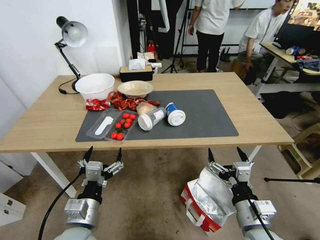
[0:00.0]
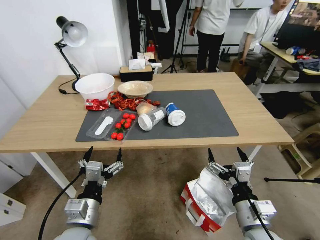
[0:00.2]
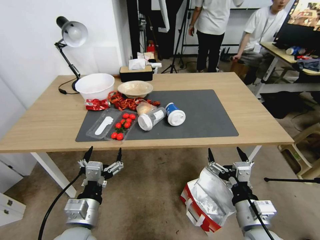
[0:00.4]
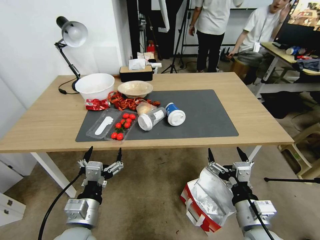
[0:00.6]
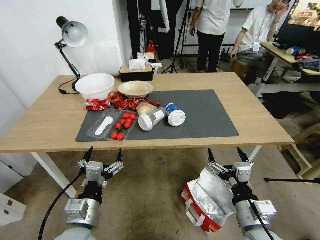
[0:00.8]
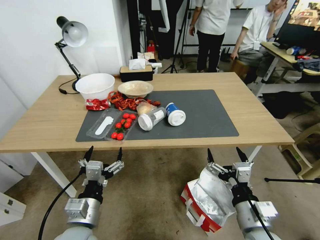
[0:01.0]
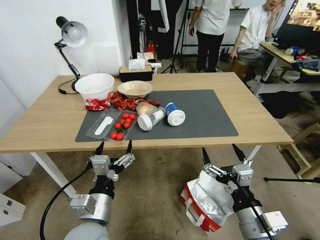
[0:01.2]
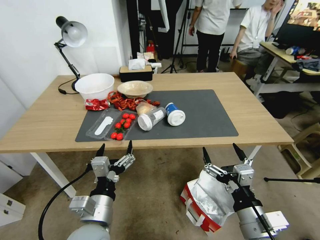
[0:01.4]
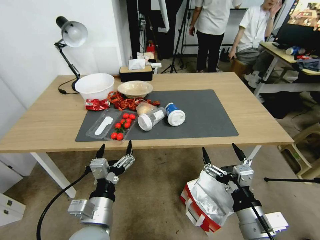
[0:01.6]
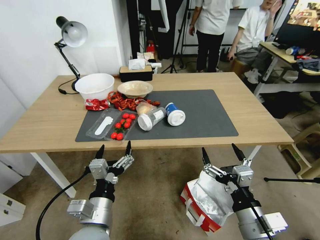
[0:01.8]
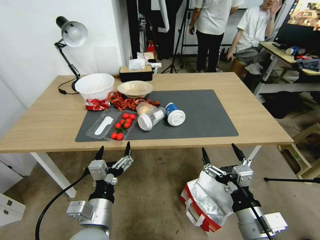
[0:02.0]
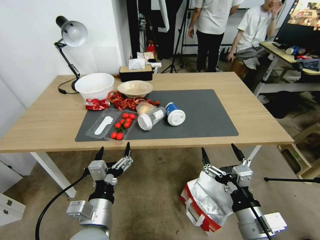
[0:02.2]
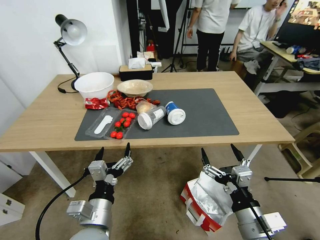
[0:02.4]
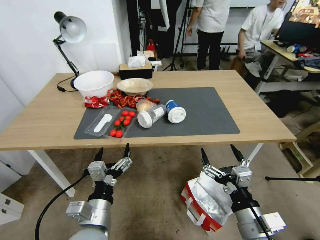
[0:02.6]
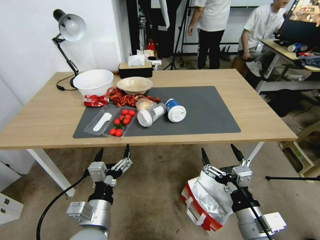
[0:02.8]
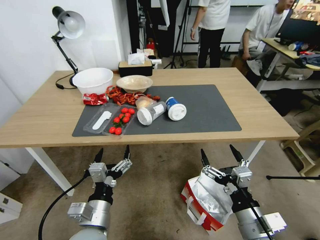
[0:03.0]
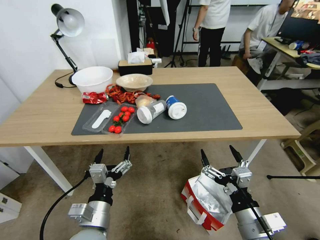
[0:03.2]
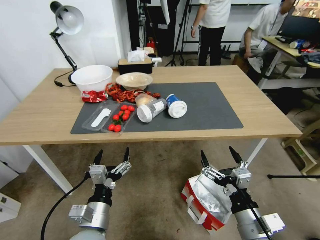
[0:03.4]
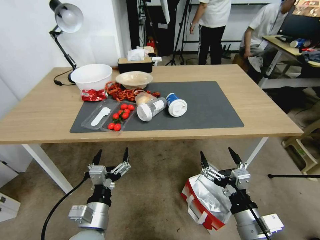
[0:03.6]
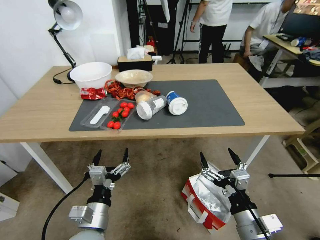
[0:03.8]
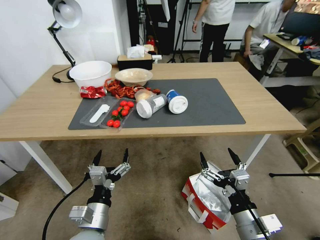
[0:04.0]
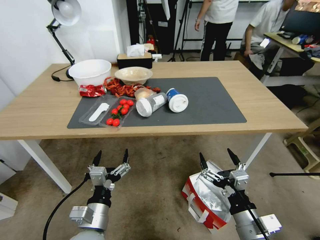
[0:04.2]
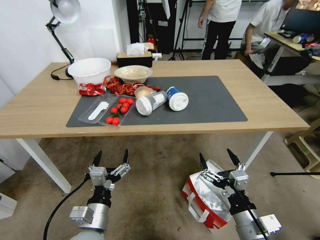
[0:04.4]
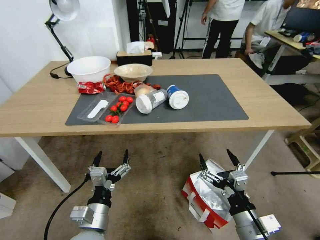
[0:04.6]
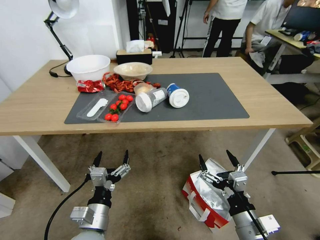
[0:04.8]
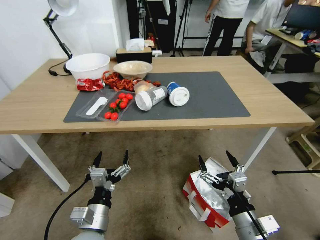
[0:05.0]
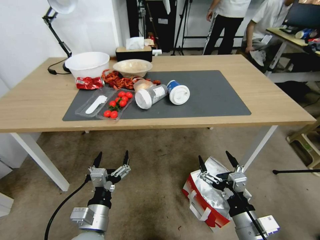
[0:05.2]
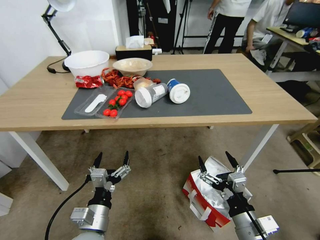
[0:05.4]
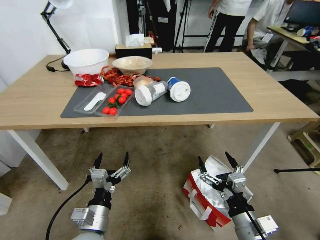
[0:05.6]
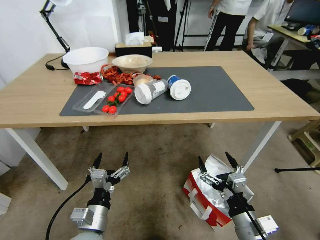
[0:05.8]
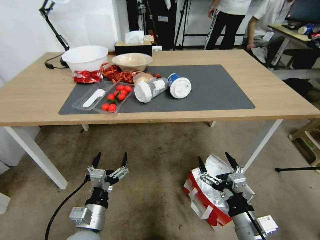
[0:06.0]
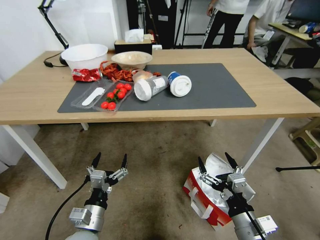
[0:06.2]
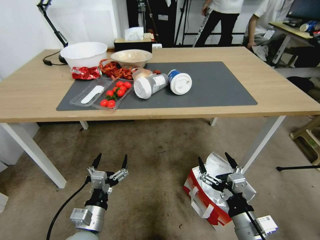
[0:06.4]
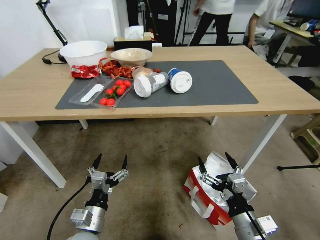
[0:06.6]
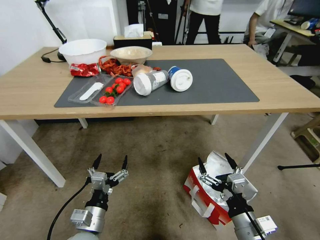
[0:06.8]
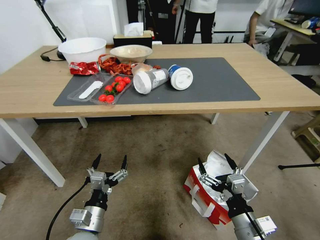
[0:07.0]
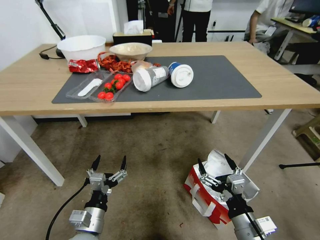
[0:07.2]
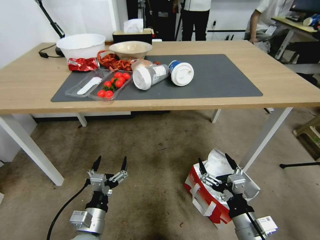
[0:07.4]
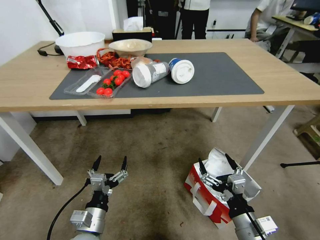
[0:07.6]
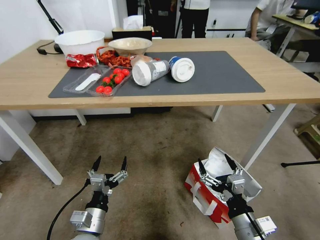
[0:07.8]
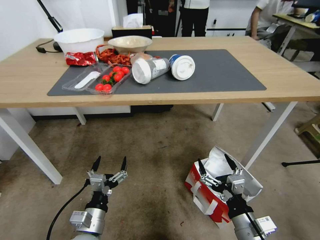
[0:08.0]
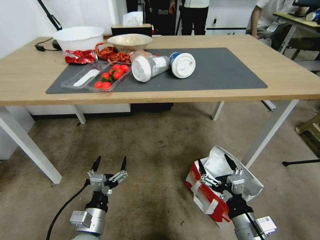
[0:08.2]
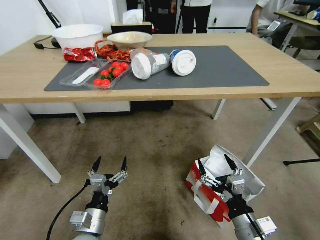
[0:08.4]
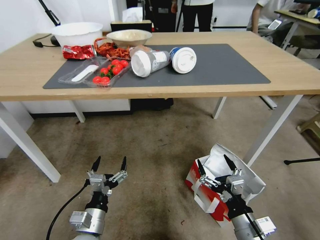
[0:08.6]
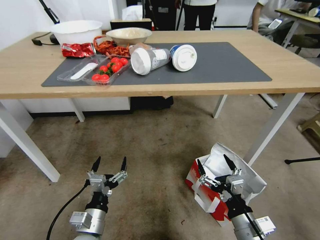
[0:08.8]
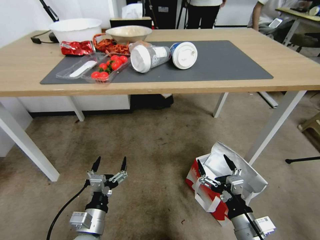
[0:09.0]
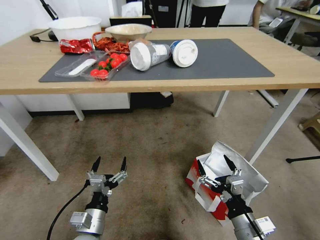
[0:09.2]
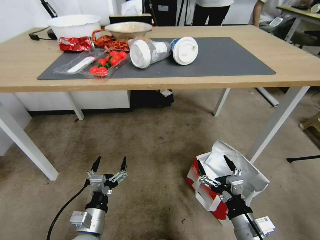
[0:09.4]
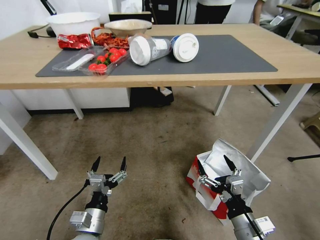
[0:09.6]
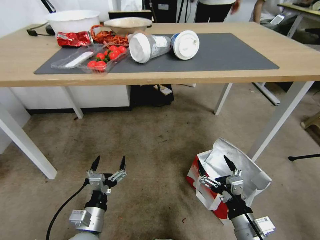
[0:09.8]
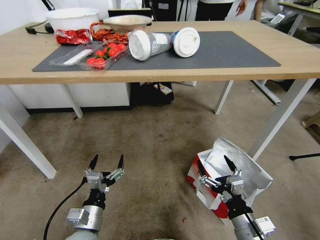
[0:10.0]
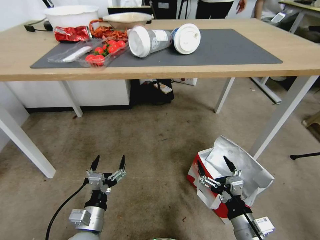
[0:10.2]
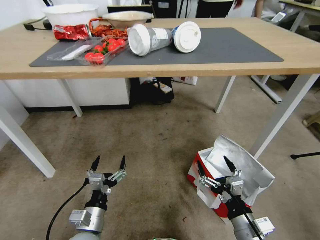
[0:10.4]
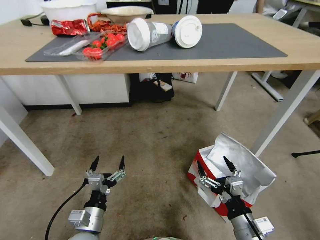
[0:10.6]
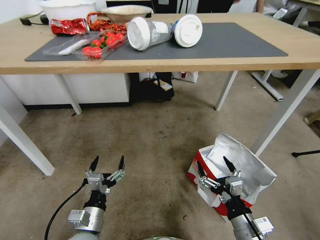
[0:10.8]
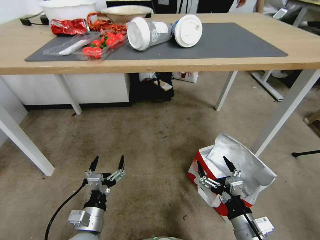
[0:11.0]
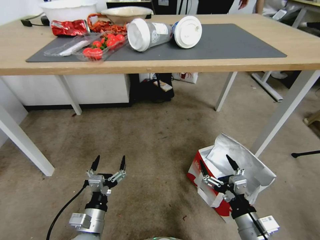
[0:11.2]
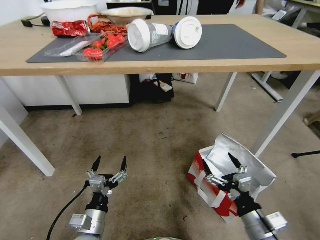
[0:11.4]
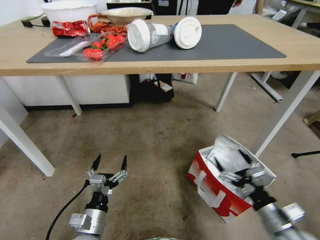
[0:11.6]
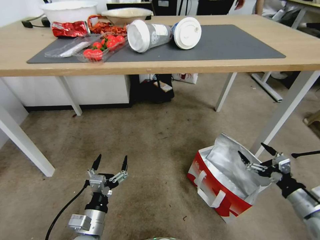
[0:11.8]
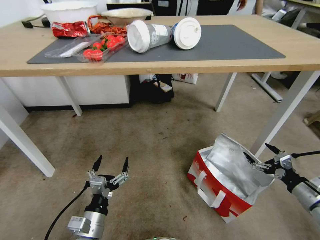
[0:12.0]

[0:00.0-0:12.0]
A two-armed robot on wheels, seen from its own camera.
Task of the whole recording: Pick up the food delivery bag from the floor and place it on the table.
0:10.4 to 0:12.0: The right gripper is displaced to the right by about 25 cm.

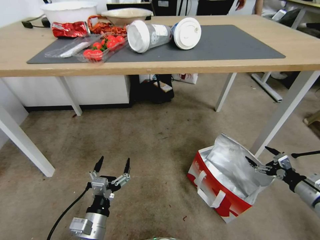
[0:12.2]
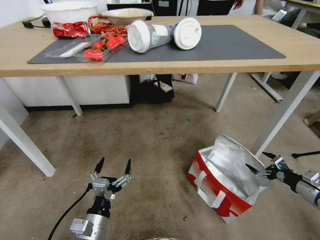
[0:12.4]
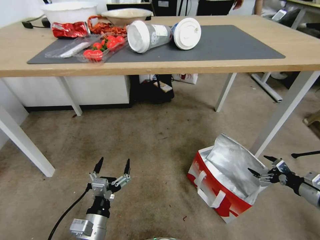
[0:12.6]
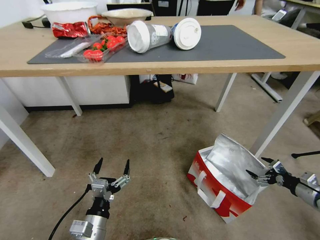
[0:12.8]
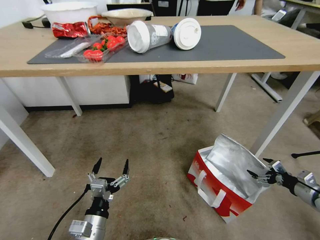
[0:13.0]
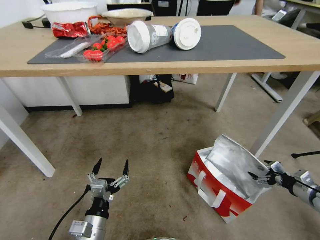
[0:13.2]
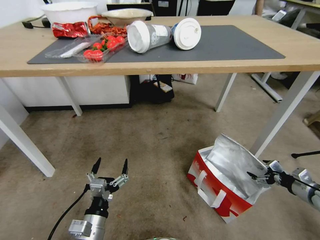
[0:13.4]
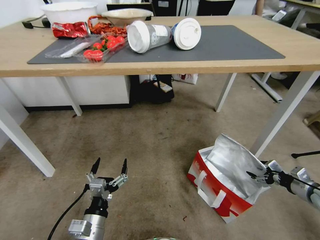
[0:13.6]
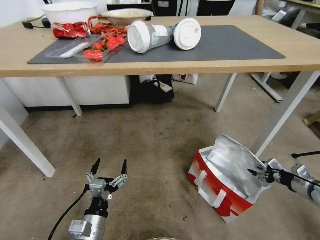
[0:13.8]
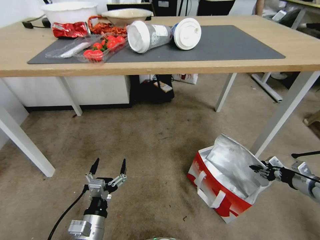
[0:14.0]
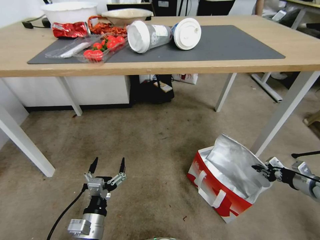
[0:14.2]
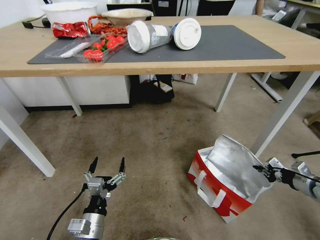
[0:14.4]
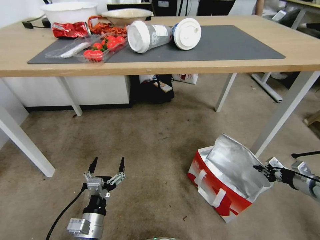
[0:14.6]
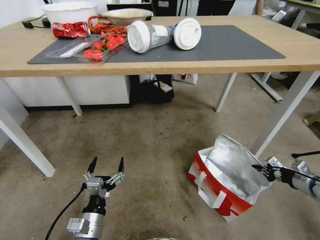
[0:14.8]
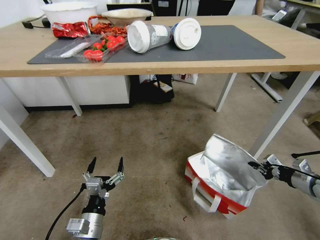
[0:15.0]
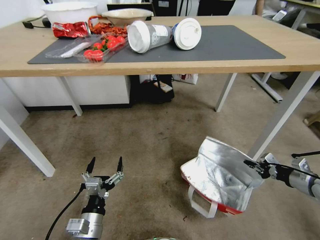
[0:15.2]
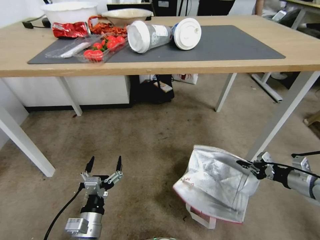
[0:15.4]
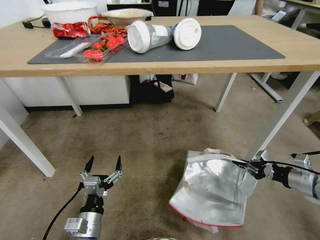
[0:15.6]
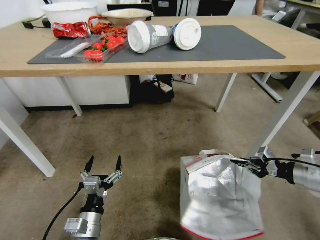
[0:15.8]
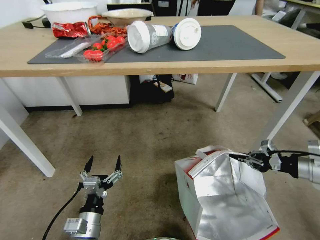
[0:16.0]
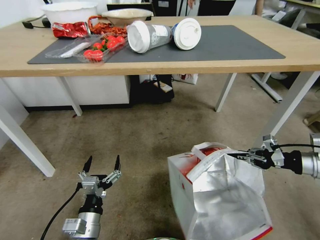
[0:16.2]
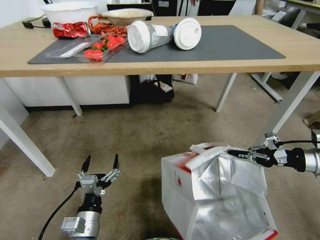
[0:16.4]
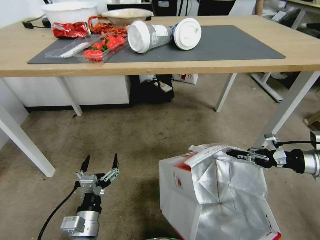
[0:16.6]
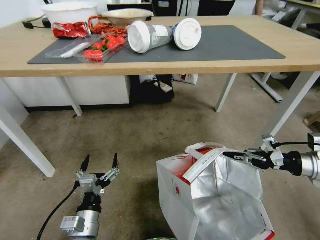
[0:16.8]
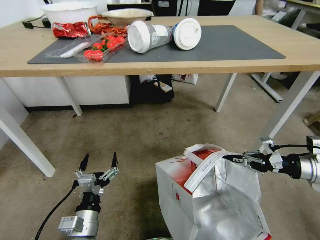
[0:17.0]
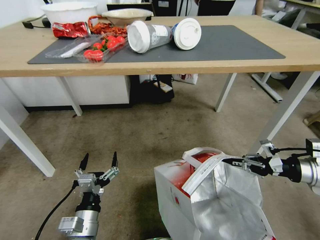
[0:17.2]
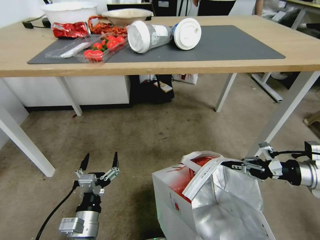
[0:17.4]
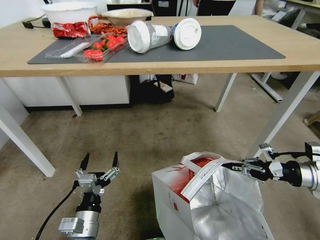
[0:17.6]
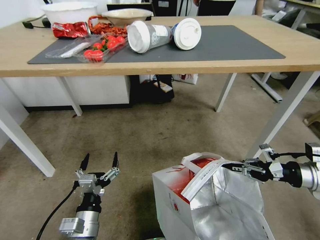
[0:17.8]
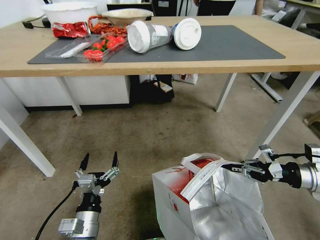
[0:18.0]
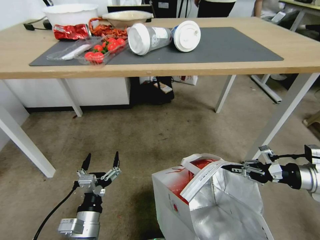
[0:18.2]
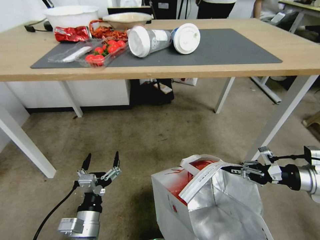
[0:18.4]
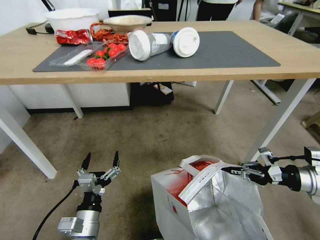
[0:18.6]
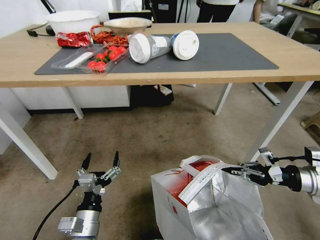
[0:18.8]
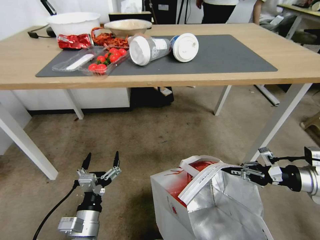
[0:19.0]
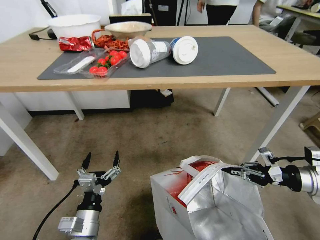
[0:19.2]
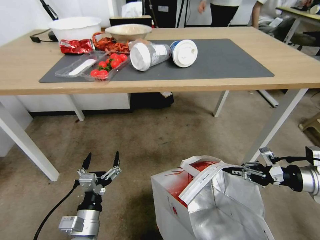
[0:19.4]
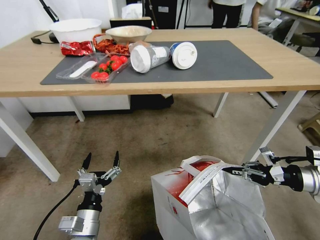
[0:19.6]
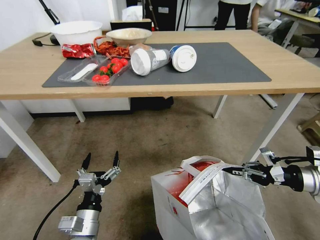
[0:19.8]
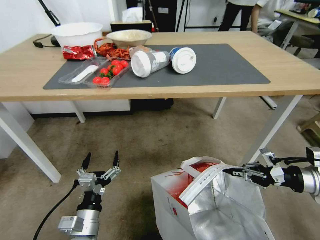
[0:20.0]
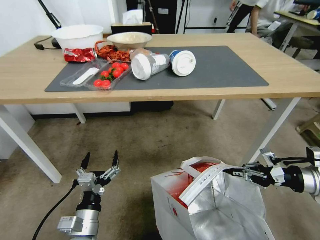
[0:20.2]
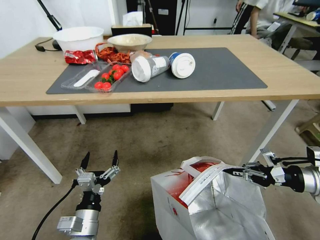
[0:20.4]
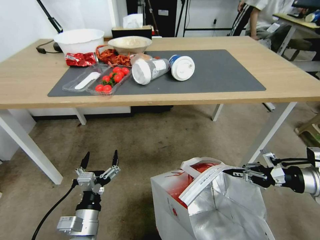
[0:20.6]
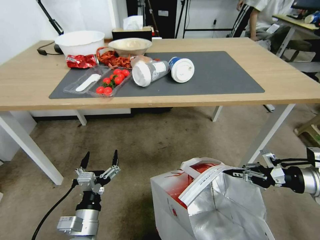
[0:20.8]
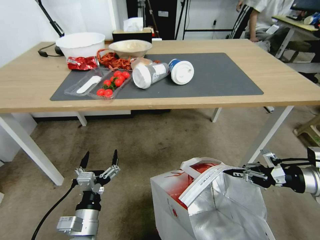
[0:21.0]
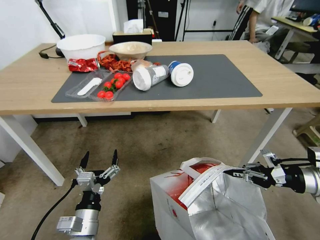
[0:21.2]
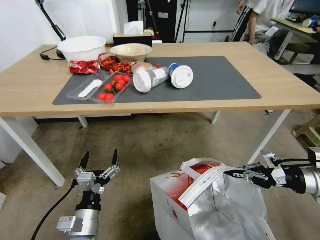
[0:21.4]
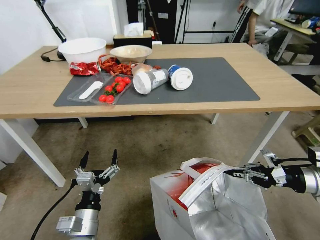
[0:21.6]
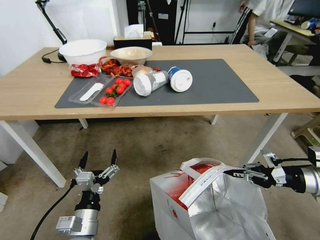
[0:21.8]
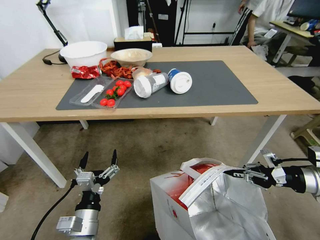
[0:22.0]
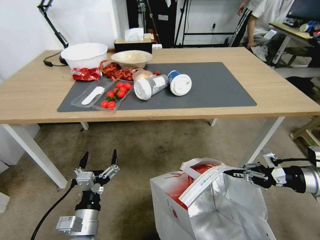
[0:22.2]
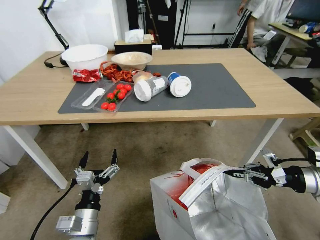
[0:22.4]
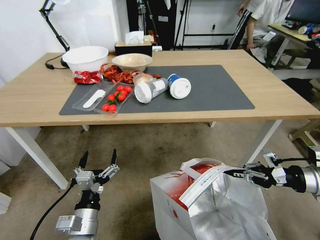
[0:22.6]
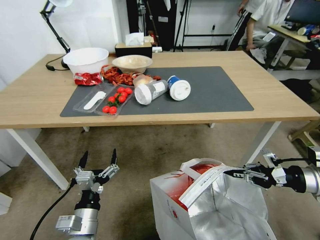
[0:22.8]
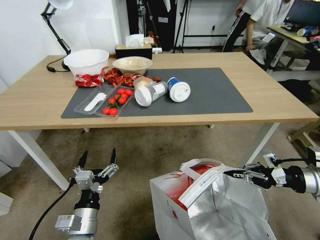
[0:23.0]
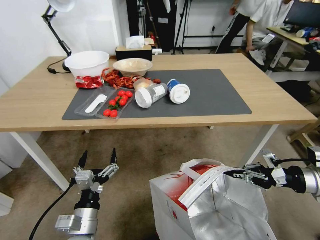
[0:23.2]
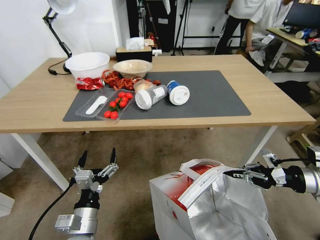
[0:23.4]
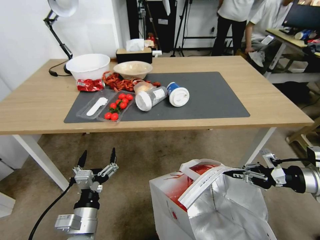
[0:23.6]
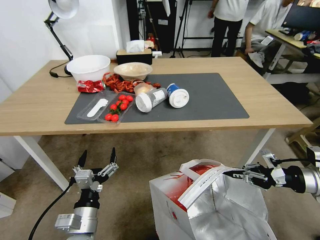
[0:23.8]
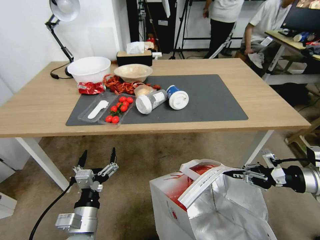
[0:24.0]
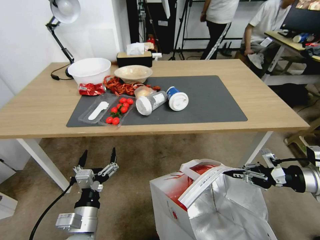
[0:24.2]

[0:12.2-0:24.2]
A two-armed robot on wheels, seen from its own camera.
Task of the whole recording: Pick up the food delivery bag from the floor and place it on the table.
0:12.2 to 0:13.8: The right gripper moves roughly 5 cm, and closes up.
0:13.8 to 0:15.2: The right gripper closes.
0:15.2 to 0:16.6: The right gripper moves upward, roughly 10 cm.
